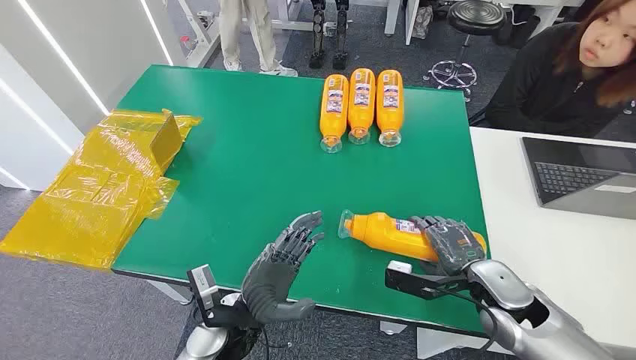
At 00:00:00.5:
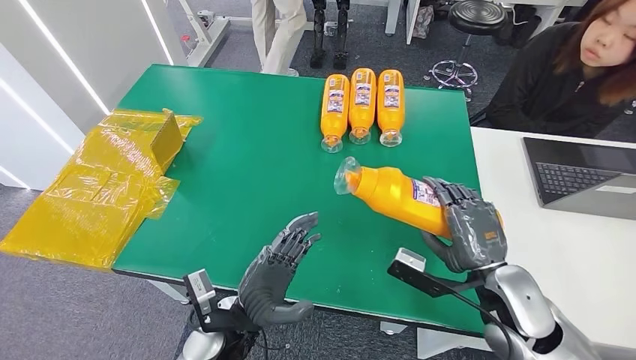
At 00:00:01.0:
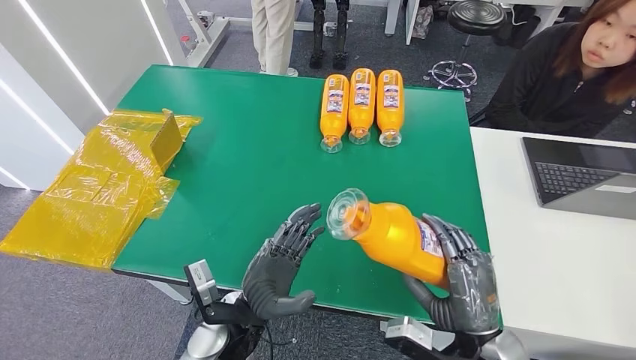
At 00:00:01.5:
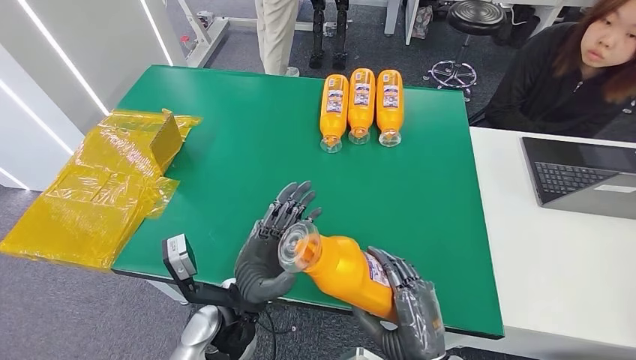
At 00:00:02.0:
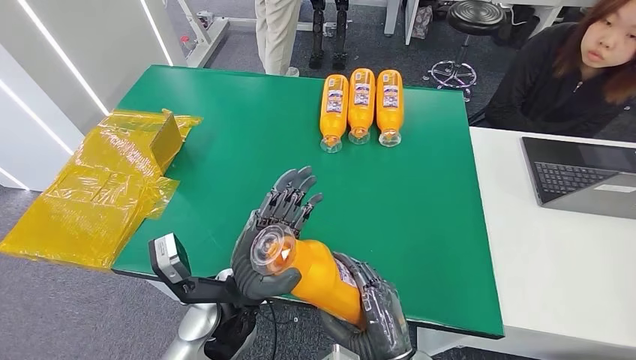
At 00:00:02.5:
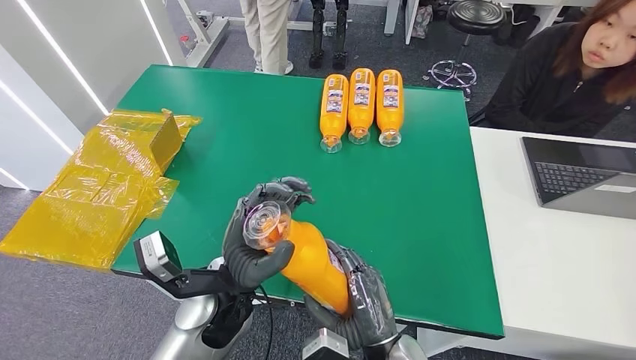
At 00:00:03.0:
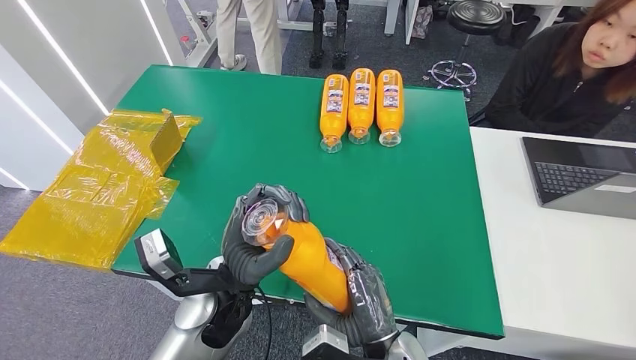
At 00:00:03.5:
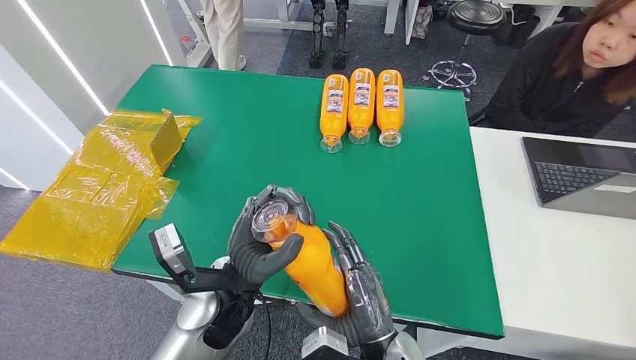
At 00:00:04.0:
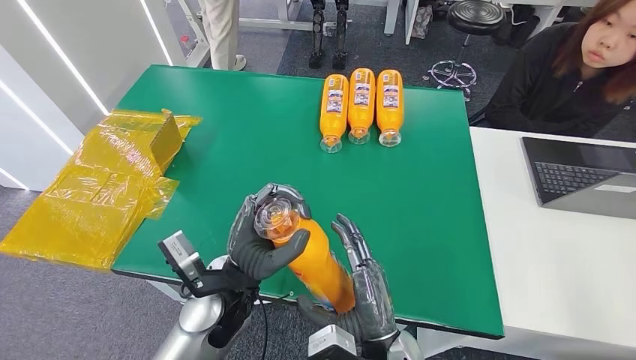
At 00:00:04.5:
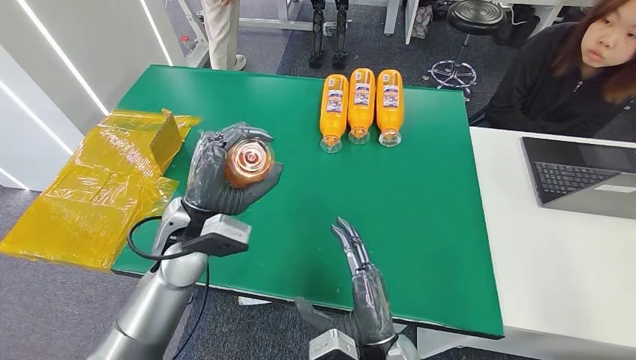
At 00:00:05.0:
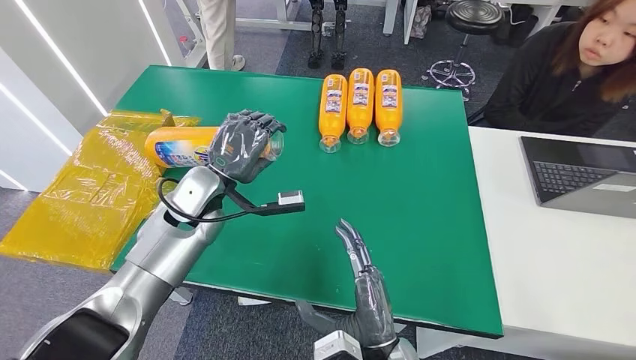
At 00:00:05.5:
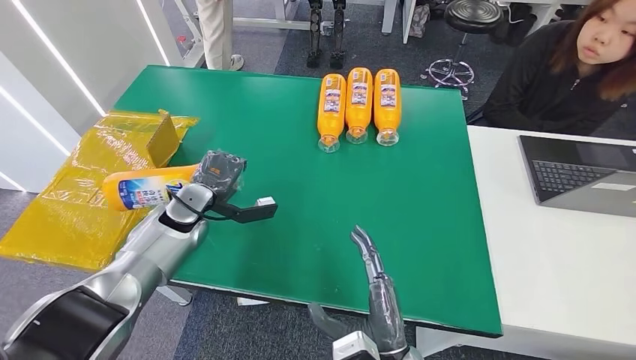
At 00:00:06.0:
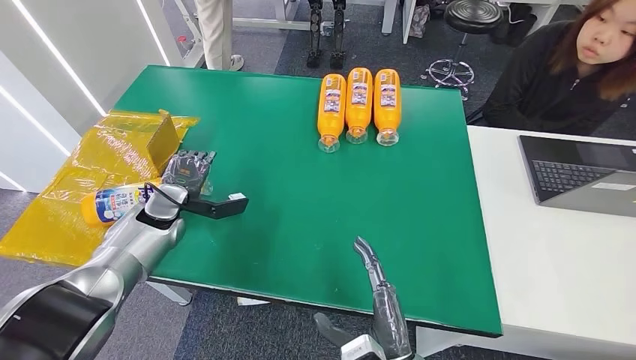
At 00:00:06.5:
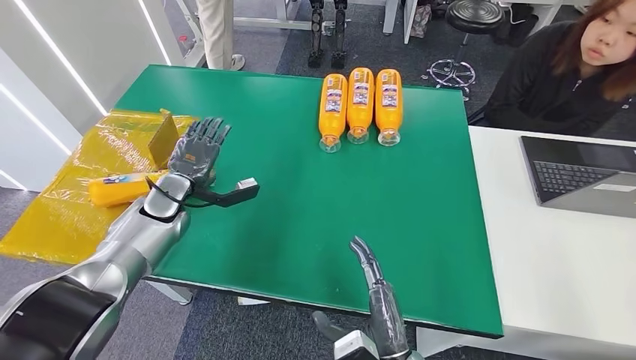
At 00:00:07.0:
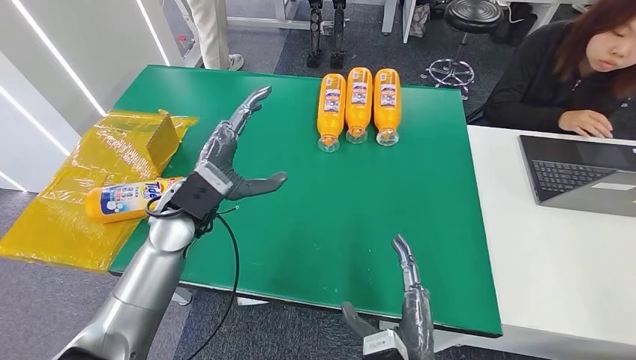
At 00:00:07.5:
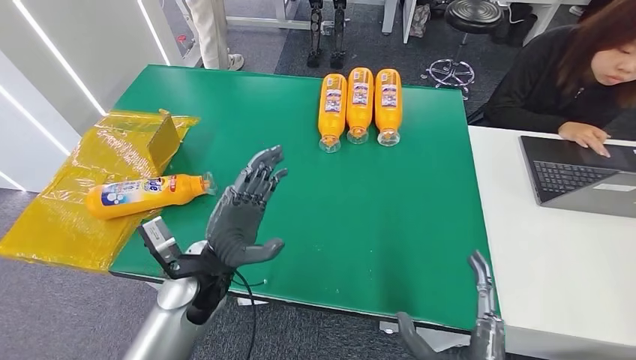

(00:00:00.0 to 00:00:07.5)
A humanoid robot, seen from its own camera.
Step, 00:00:00.0 - 00:00:02.0: Pick up the bottle from the table.
Step, 00:00:02.5 - 00:00:07.5: Turn the bottle to the front side.
00:00:02.0 - 00:00:04.0: There are only small adjustments of the hands.
00:00:05.5 - 00:00:07.5: The right hand heads to the right and backward, covering approximately 10 cm. Meanwhile the left hand heads backward and to the right, covering some 15 cm.
